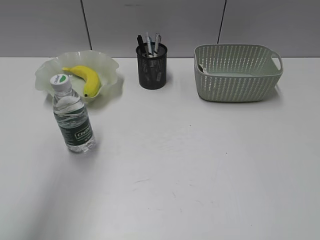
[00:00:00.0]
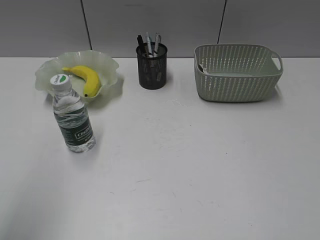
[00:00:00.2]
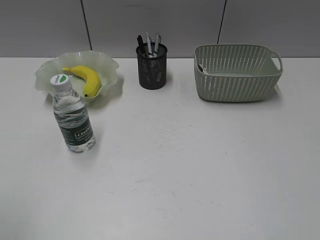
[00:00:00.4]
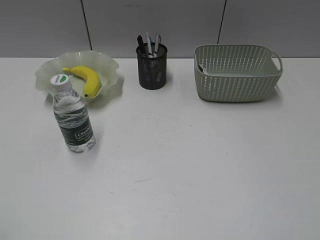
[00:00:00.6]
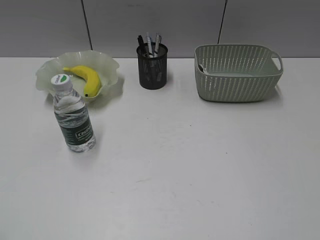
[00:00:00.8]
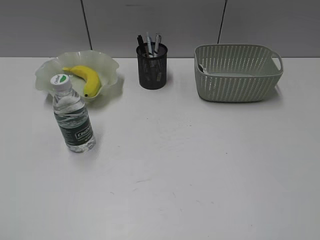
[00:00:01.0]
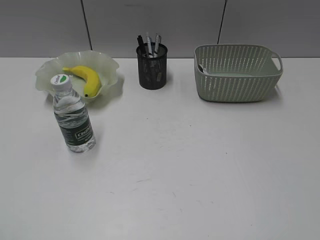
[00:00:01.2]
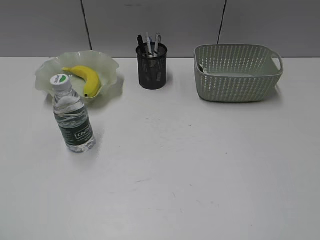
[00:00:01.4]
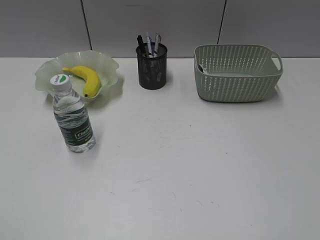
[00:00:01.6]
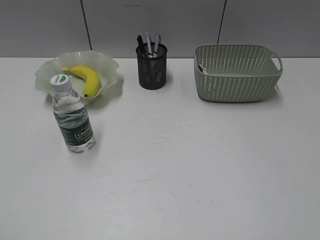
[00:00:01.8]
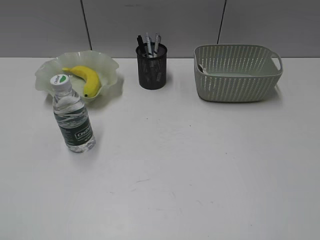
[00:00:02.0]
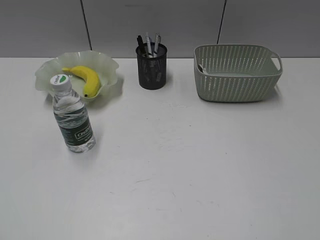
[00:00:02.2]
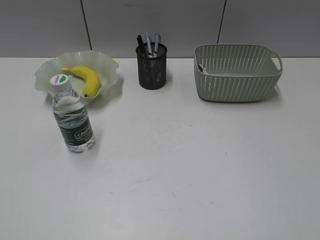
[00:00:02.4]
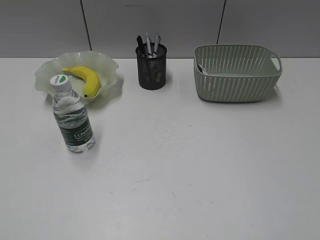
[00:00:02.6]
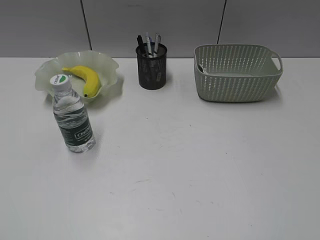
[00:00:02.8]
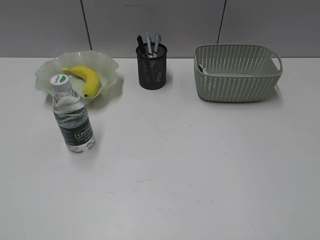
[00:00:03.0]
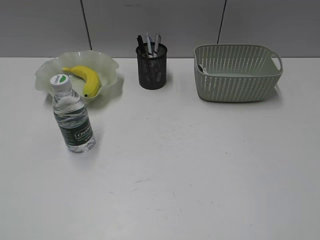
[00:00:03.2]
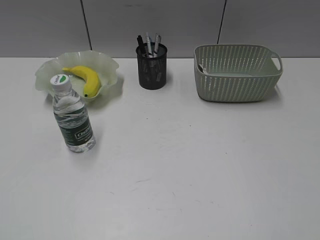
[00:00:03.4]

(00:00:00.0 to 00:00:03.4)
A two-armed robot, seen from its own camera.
00:00:00.0 - 00:00:01.6: The left gripper heads backward, downward and to the left, covering roughly 25 cm.
